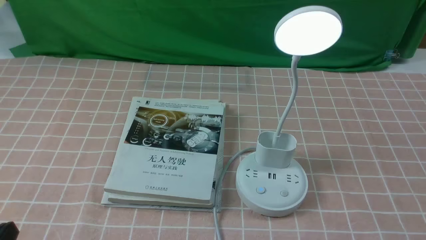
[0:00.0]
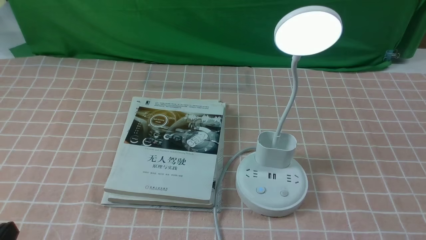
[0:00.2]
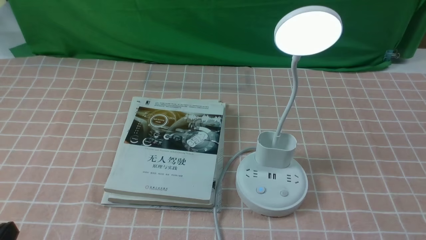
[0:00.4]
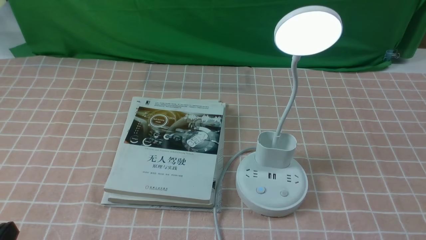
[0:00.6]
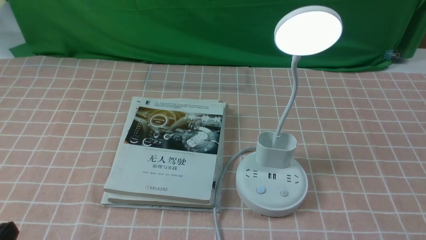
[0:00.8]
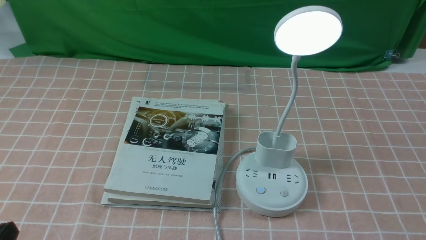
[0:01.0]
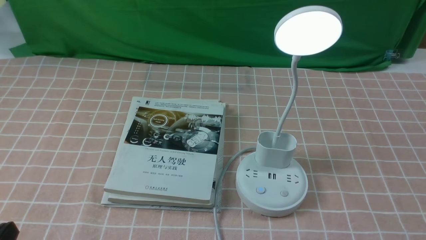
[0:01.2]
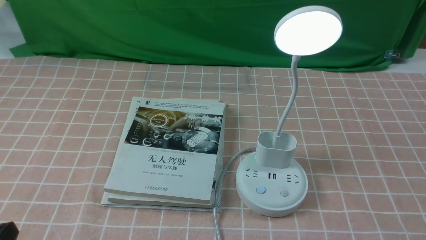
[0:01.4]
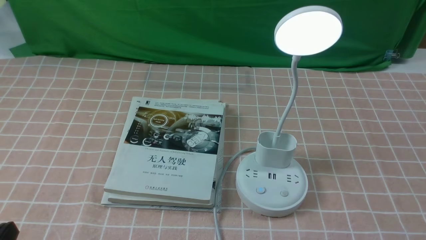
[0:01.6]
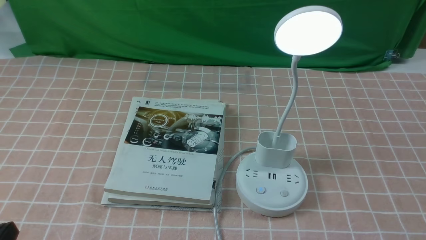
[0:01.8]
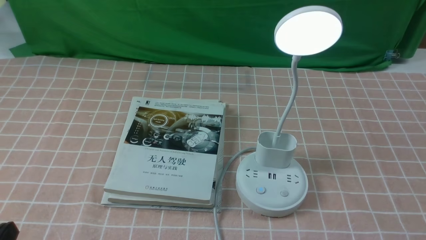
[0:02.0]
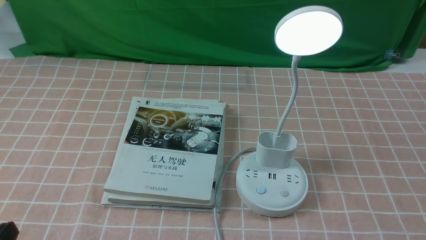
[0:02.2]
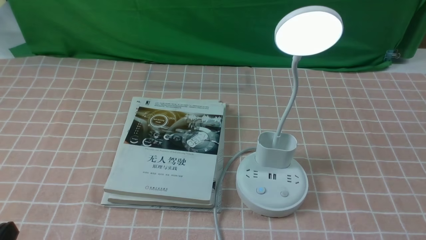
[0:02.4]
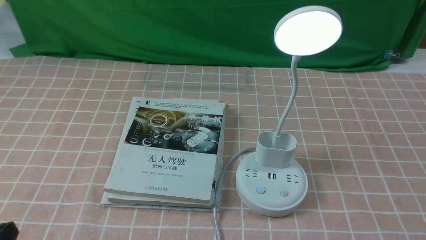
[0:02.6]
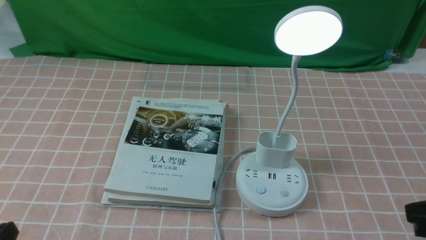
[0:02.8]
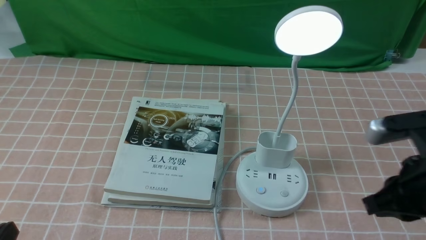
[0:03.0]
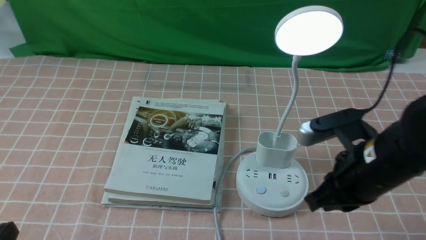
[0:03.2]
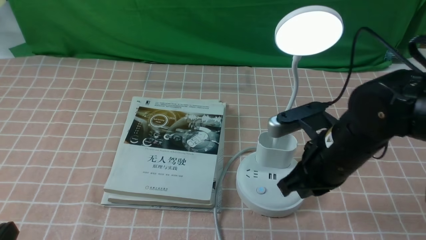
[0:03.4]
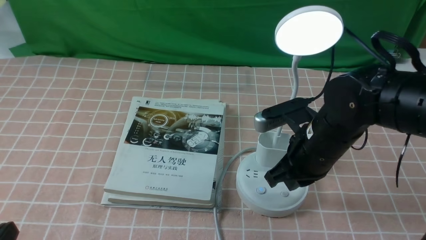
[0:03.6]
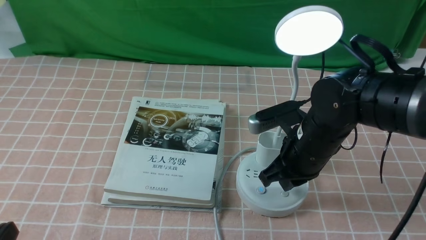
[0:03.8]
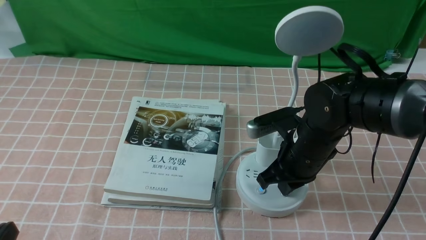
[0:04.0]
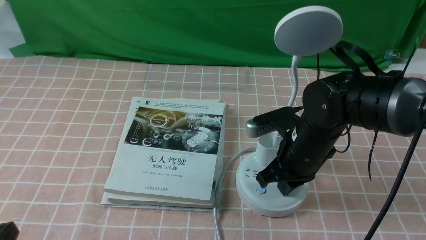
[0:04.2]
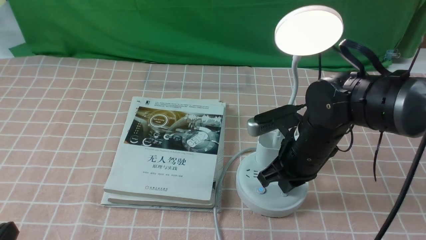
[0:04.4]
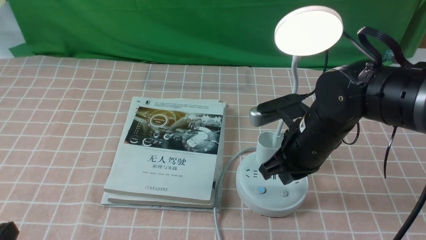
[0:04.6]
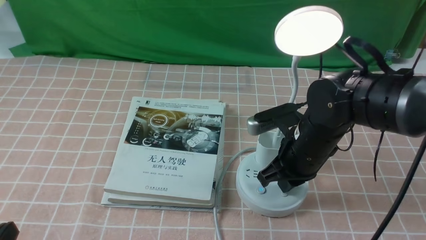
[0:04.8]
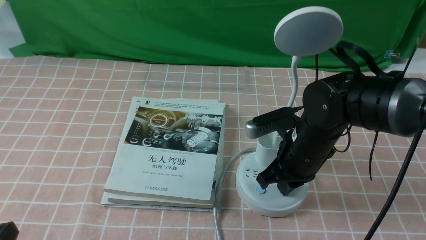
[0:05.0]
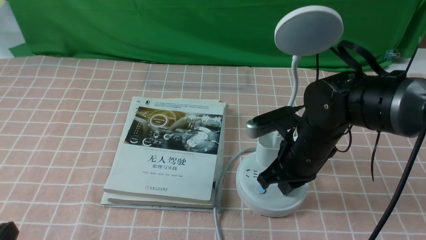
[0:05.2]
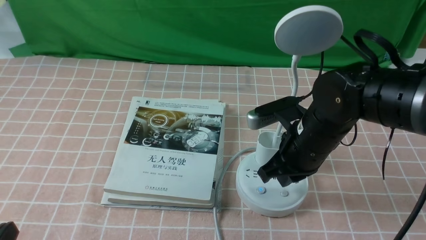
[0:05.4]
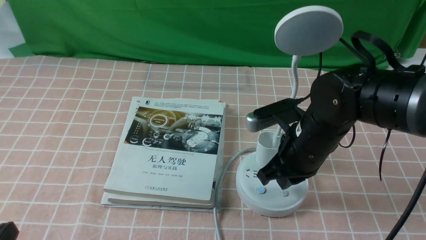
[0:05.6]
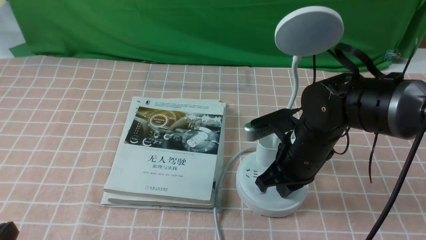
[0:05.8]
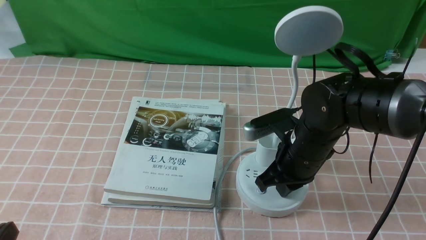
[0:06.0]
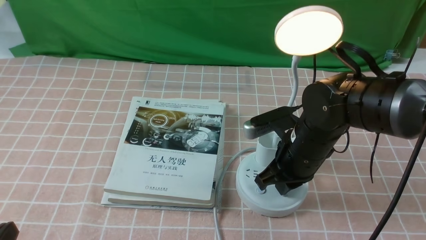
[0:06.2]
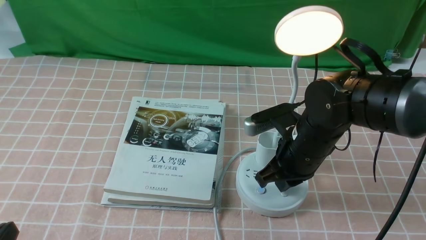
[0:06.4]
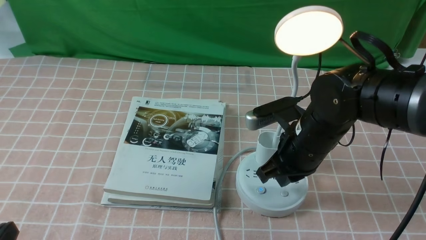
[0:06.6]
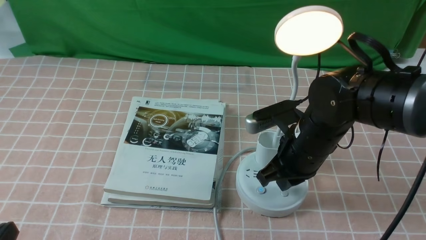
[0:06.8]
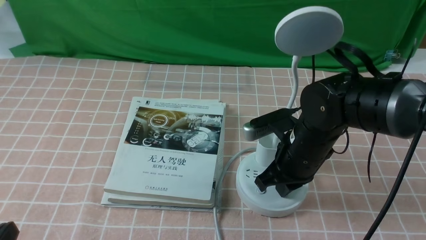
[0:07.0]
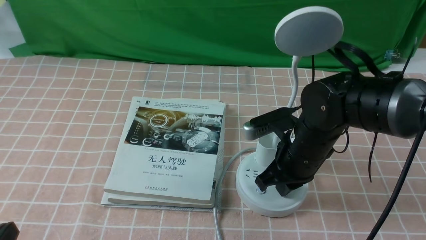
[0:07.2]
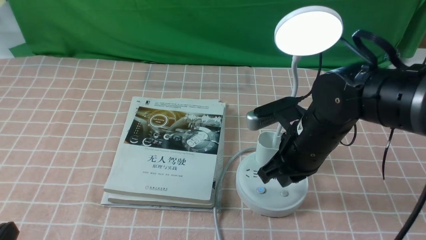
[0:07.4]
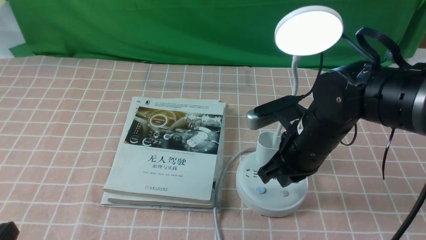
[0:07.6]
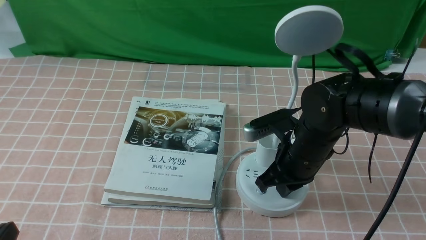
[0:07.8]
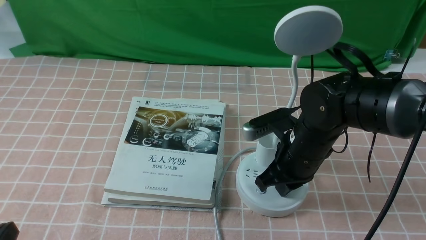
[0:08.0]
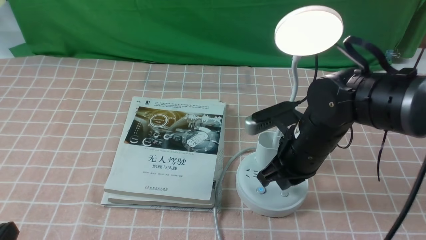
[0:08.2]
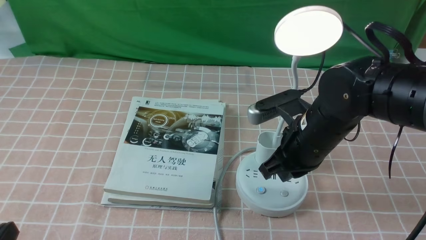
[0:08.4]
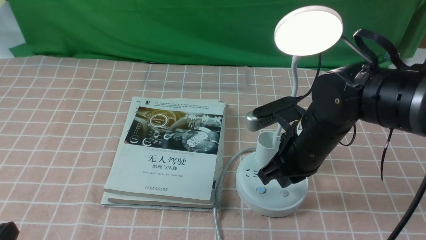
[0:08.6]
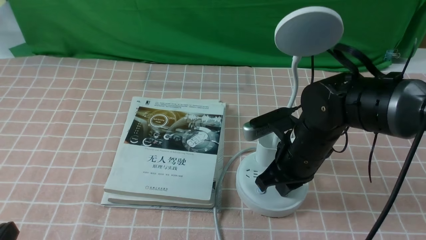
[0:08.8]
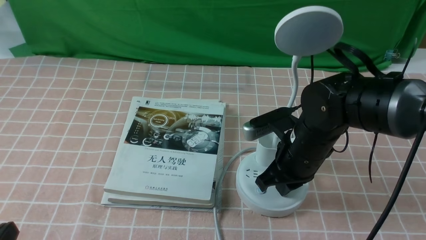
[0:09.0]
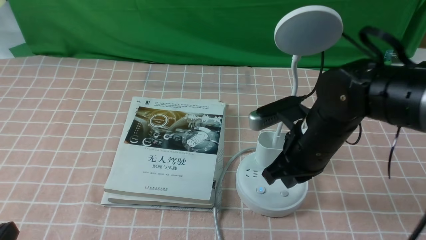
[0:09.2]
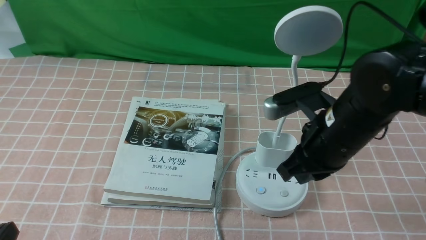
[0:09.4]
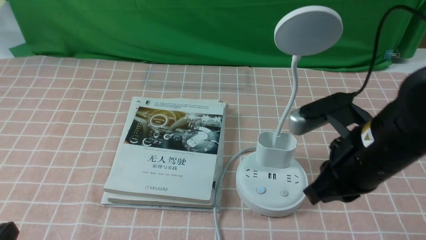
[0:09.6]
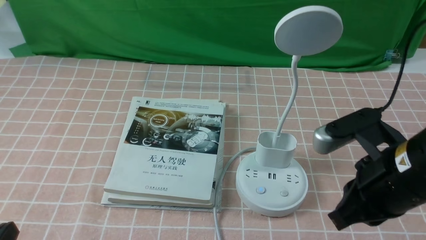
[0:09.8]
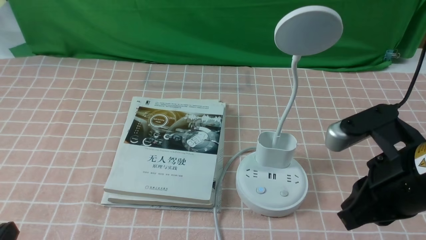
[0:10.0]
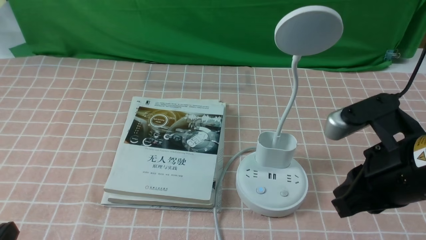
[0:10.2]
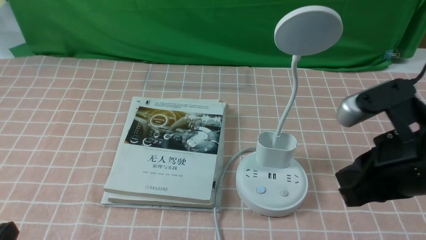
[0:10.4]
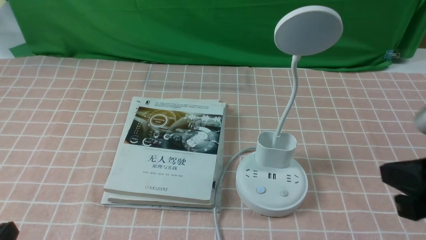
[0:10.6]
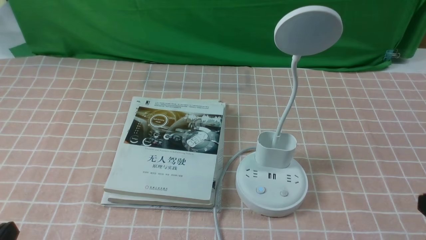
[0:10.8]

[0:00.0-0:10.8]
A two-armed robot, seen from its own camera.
Task of the whole recording: turn off the table lamp on the pink coffee tablecloth by hand.
Step, 0:00.0 to 0:09.2: use the right arm to press the button switch on the lamp holder.
0:01.6 to 0:03.0: The right gripper is displaced forward, to the left and upward by some 20 cm, and closes.
0:03.0 to 0:04.6: The right gripper shifts about 15 cm forward, to the left and downward.
0:04.6 to 0:06.2: Both grippers stay put.
0:06.2 to 0:09.2: The grippers stay close to where they were, moving slightly.
0:09.2 to 0:10.8: The right gripper is displaced backward and to the right by approximately 25 cm.

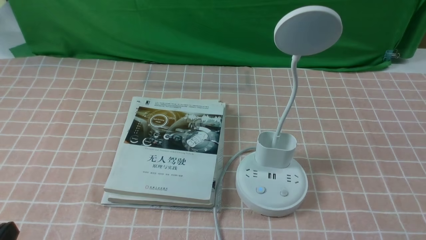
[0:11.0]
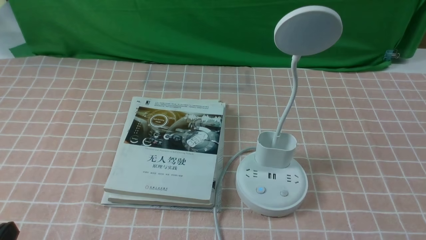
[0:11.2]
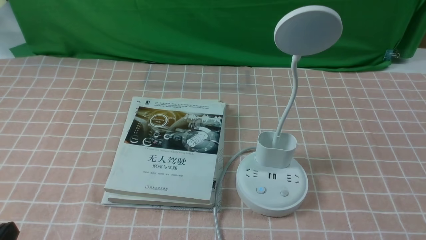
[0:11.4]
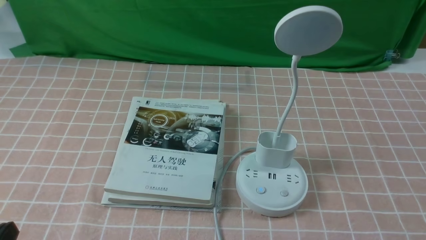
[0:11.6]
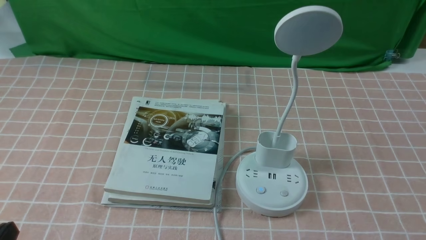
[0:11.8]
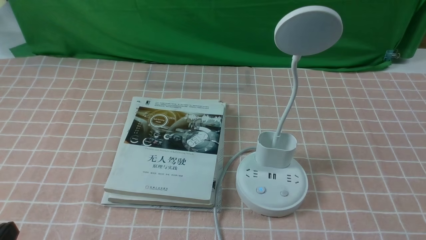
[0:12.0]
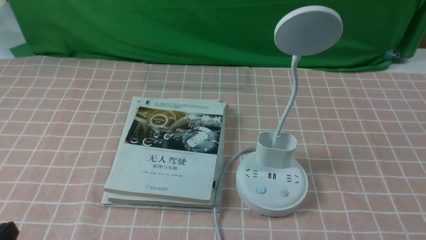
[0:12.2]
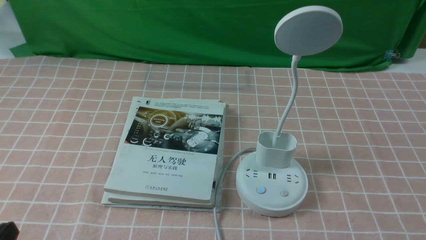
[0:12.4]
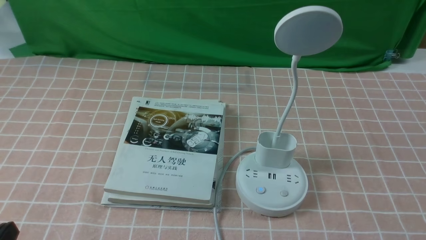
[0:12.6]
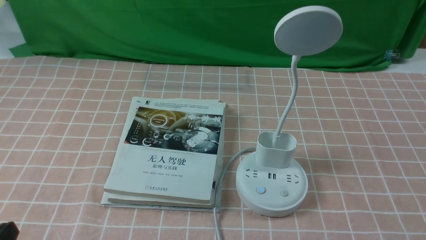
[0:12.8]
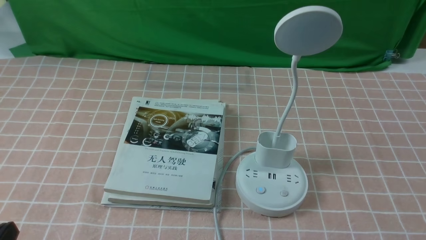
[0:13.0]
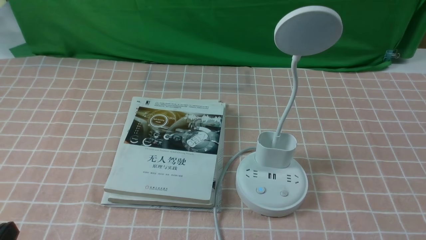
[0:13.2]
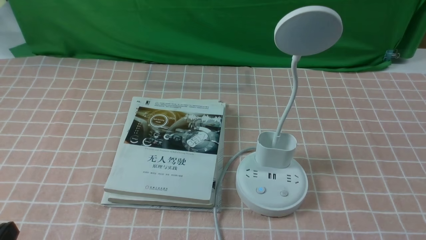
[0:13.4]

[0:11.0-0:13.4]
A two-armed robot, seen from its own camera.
Task of the whole recording: turn off the table lamp on the pink coffee tablecloth by hand.
0:12.2 to 0:13.4: Neither gripper changes place.
